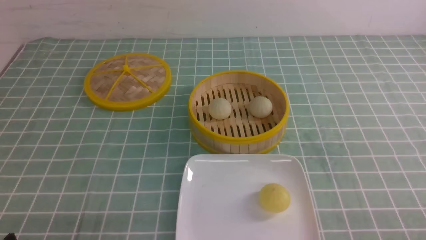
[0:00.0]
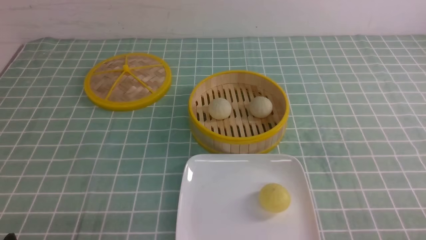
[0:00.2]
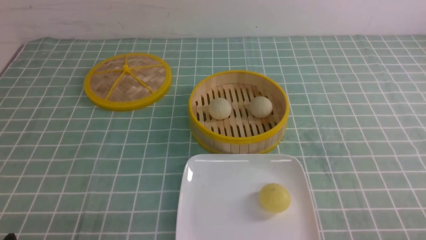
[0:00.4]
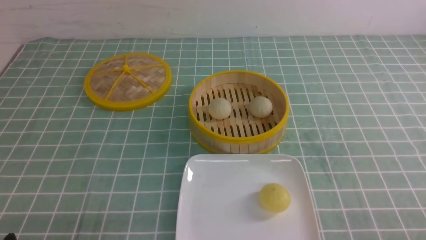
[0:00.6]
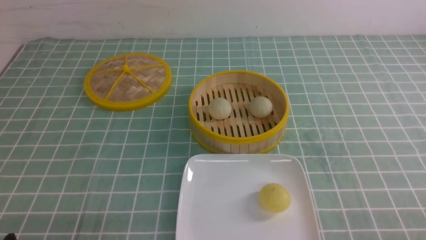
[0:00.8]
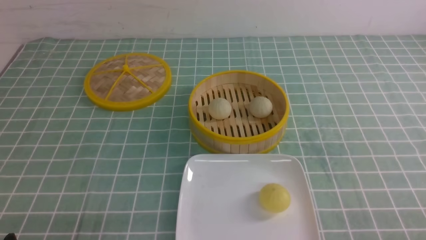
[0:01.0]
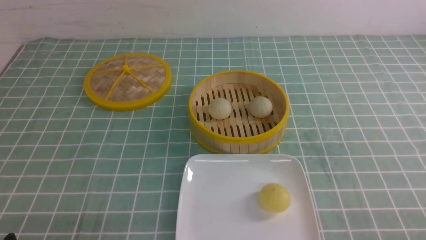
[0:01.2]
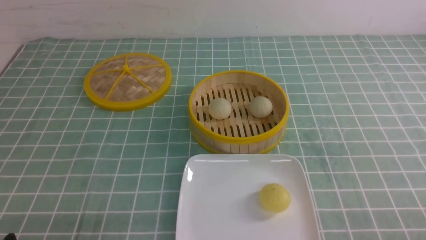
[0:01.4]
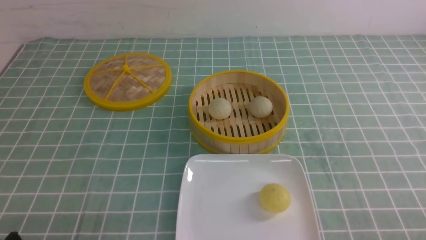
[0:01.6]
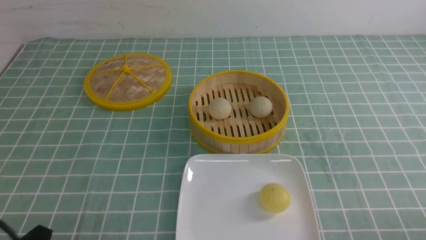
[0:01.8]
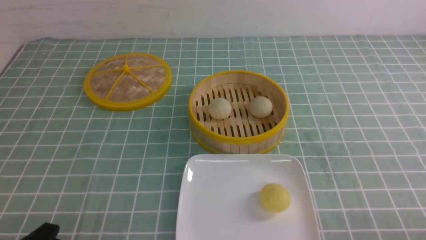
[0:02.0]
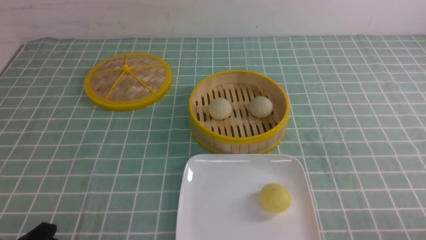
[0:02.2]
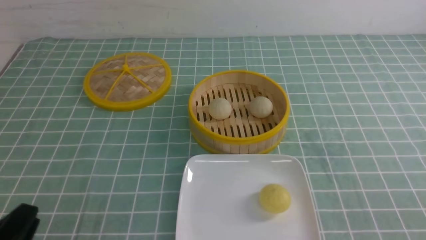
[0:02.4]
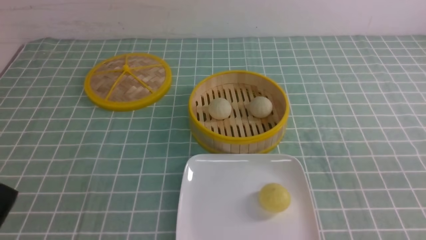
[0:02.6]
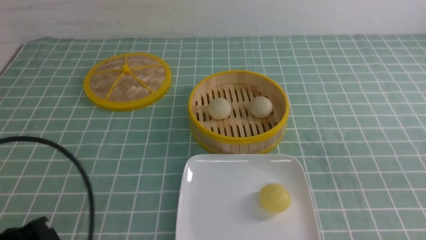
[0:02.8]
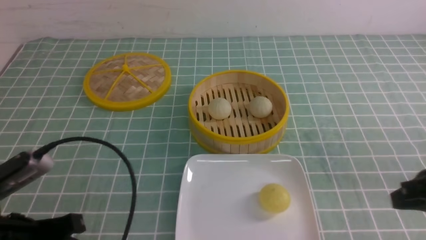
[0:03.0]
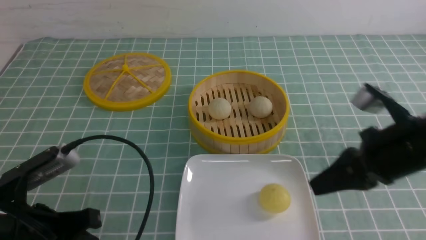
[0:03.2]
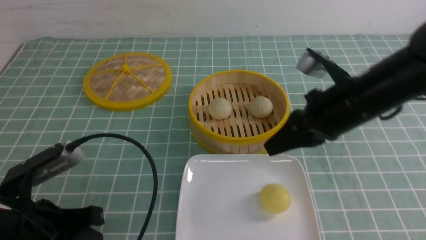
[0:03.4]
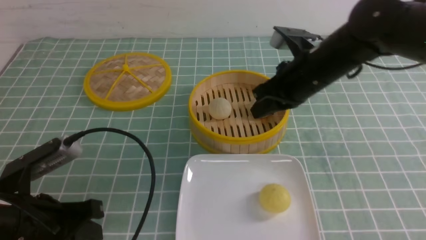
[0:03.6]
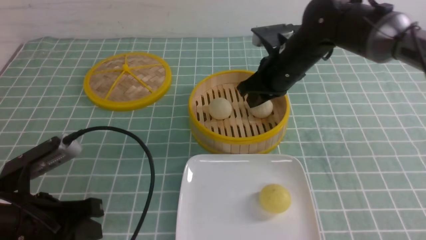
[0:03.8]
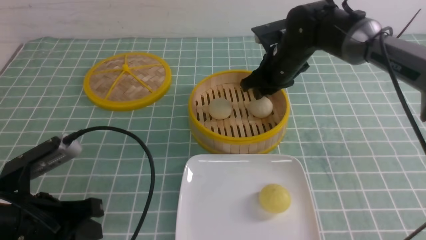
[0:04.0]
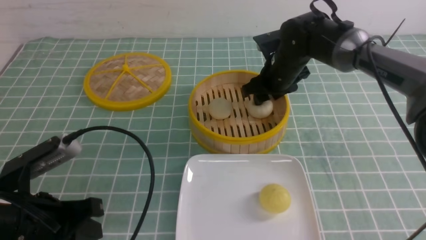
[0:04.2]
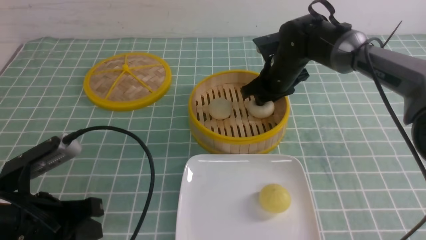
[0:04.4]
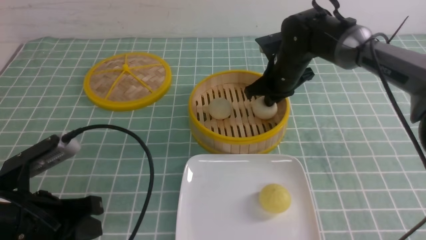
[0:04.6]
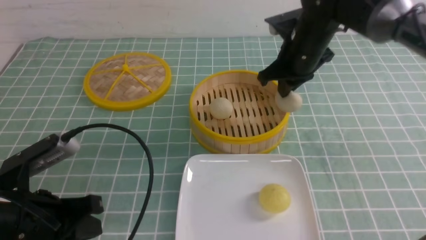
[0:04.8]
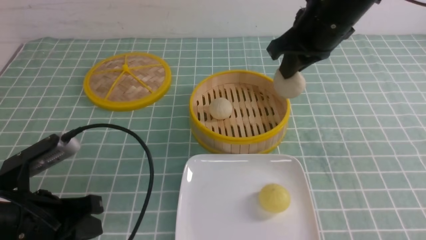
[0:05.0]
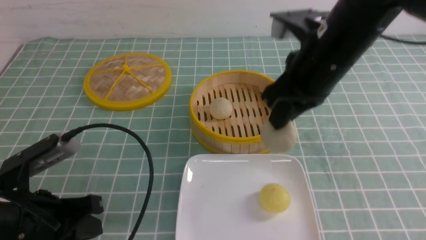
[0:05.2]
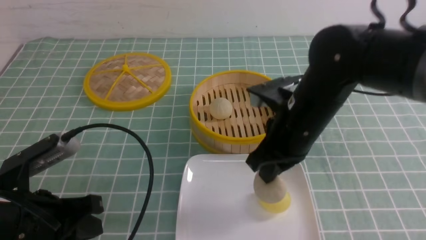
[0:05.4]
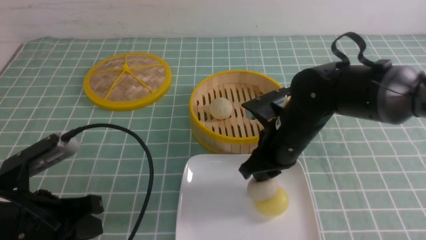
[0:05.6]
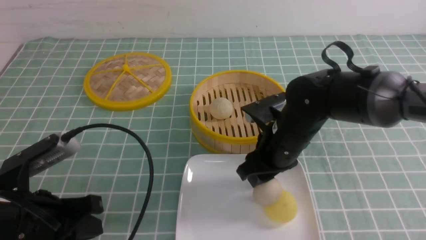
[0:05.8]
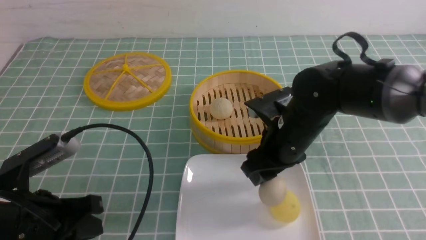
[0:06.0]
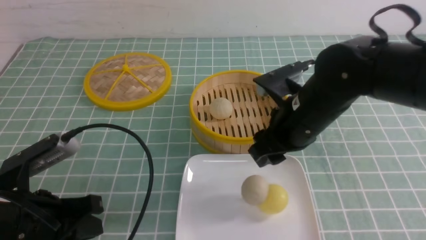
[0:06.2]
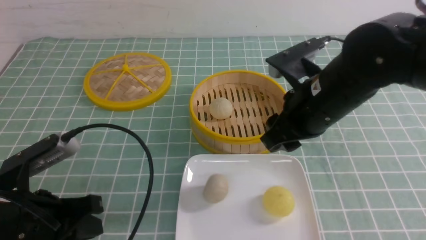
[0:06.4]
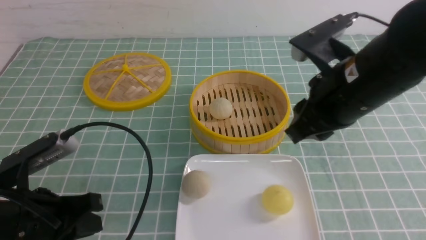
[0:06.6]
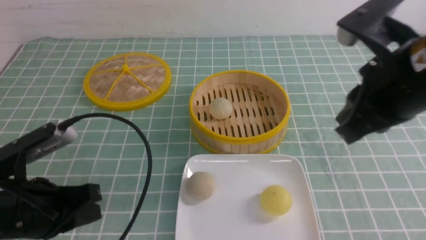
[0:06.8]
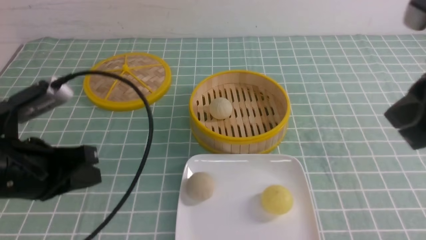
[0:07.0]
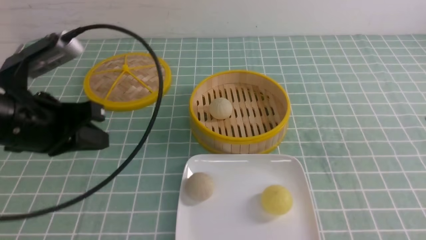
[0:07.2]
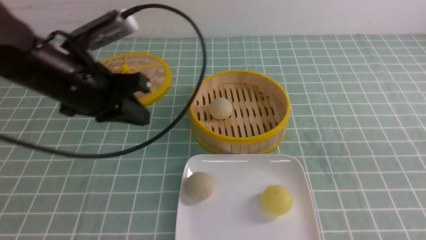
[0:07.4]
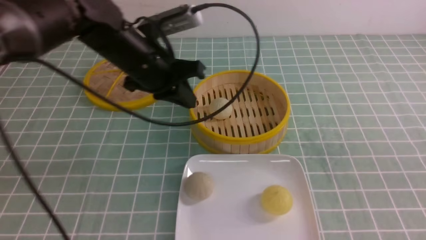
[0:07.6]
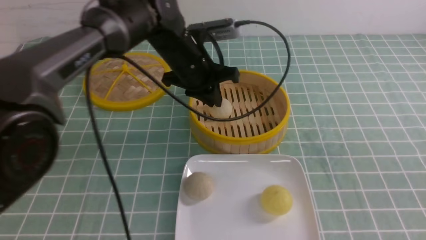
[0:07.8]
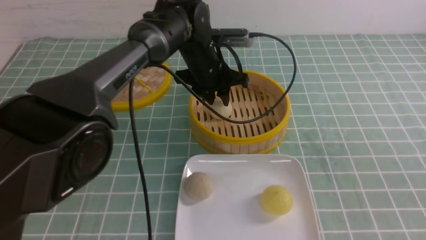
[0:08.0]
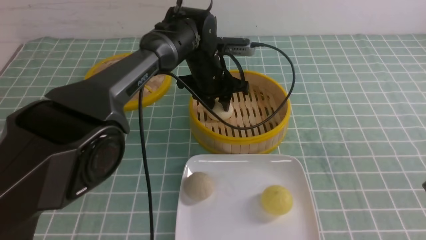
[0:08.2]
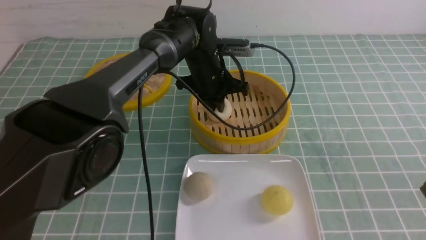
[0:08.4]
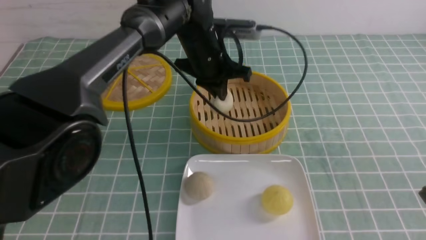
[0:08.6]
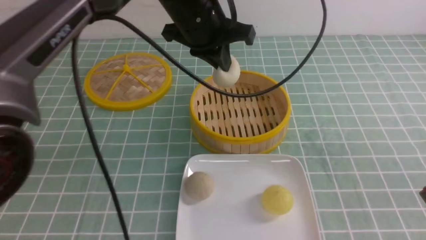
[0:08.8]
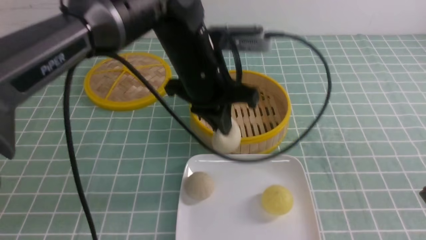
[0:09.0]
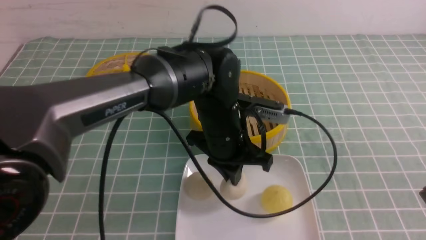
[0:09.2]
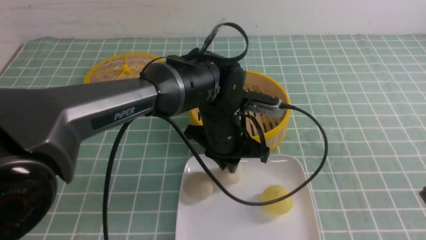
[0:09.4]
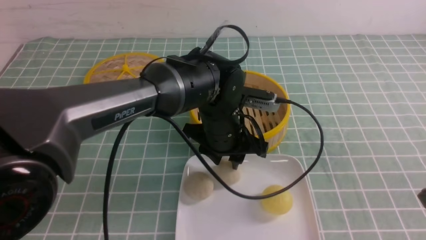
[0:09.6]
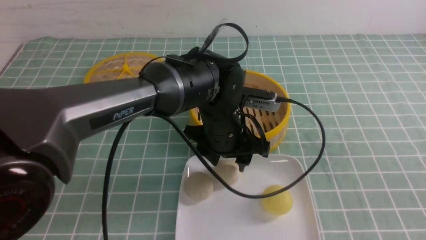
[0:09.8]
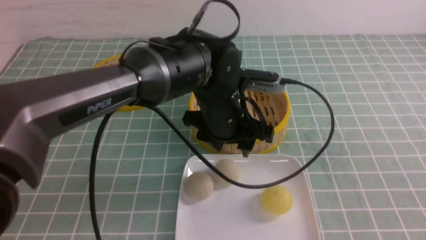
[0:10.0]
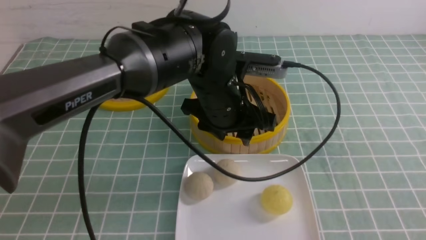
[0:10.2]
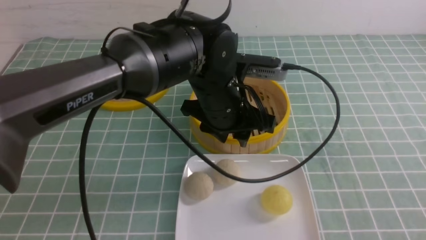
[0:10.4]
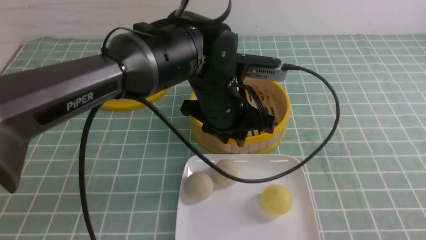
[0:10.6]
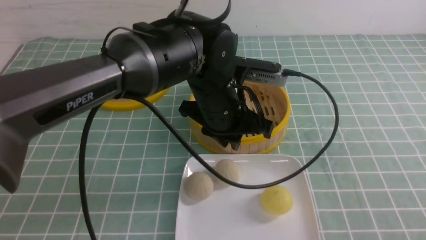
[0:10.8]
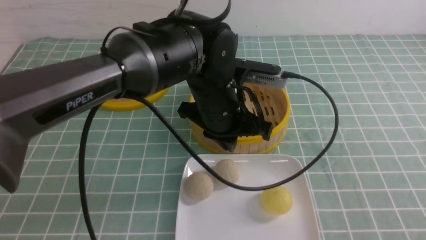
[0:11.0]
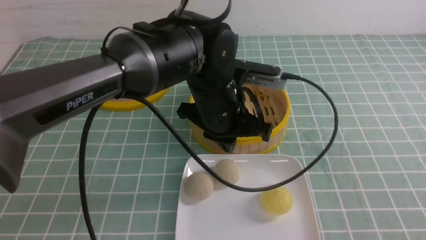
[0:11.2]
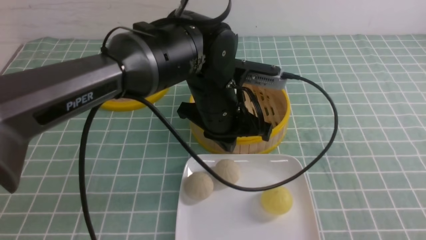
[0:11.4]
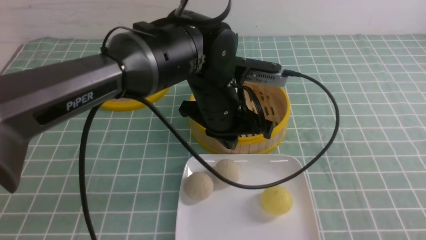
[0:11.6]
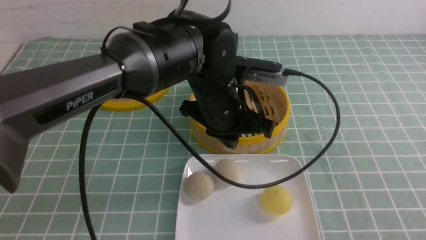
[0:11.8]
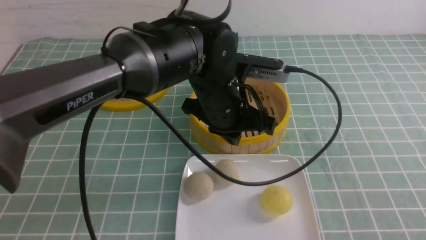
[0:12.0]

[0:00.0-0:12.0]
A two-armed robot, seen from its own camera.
Step, 0:00.0 to 0:04.6: use the right arm to grab the steamed stuffed bun that is closest to it.
Step, 0:04.8 to 0:05.8: use the right arm to put the steamed stuffed bun into the plate.
Step, 0:06.0 to 0:08.4: use the left arm to grab the steamed stuffed bun that is closest to it.
Step, 0:08.6 to 0:09.6: use the left arm to put the steamed stuffed bun into the plate.
0:01.6 to 0:03.0: The left gripper goes roughly 10 cm upward and forward, and closes its fingers. Meanwhile the right gripper is displaced forward, upward and to the left by approximately 15 cm, and closes up.
0:03.0 to 0:04.4: The right gripper is displaced forward and to the left by approximately 30 cm, and opens up.
0:04.4 to 0:06.0: The right gripper heads backward, covering roughly 15 cm, and opens up.
0:06.0 to 0:07.6: The right gripper heads backward, to the right and upward, covering some 30 cm, and closes up; the left gripper heads forward and to the right, covering some 25 cm.
0:07.6 to 0:09.0: The left gripper heads to the right, covering about 10 cm, travels forward and back again, approximately 10 cm each way, and opens, then closes again.
0:09.0 to 0:10.4: The left gripper travels downward and back again, approximately 10 cm each way, and opens its fingers; the right gripper heads backward and to the right, covering roughly 10 cm.
0:10.4 to 0:12.0: The right gripper travels downward by some 5 cm. The left gripper closes its fingers.

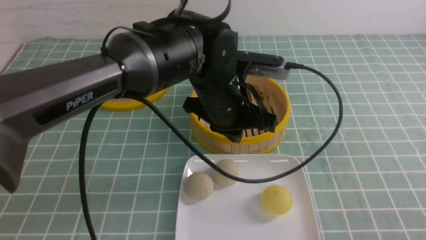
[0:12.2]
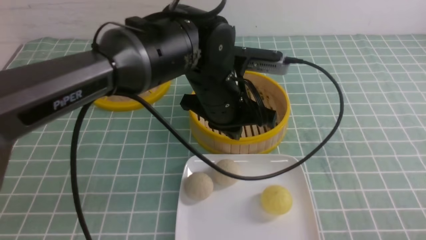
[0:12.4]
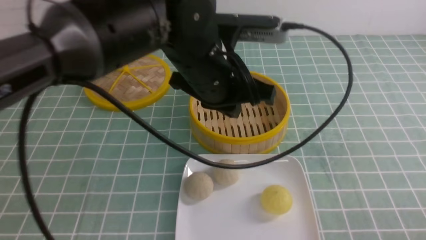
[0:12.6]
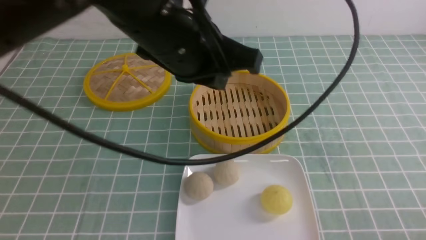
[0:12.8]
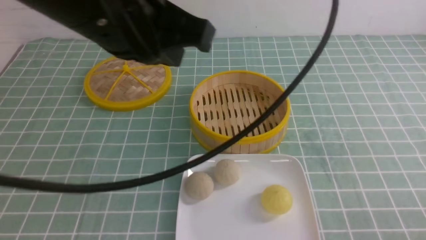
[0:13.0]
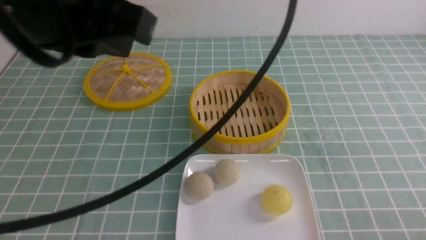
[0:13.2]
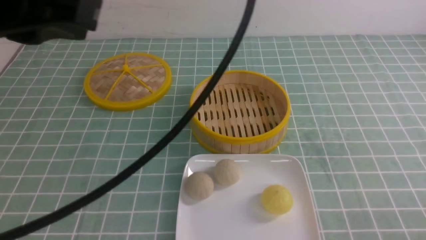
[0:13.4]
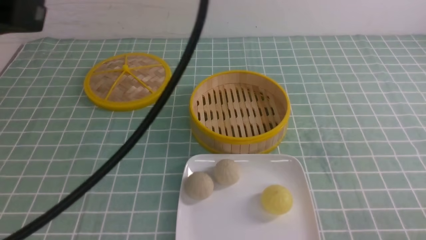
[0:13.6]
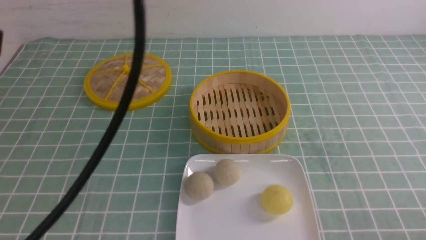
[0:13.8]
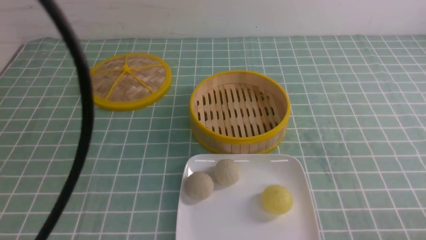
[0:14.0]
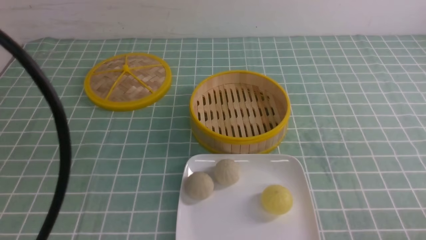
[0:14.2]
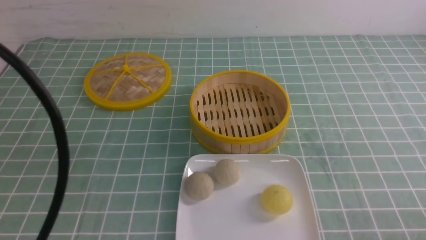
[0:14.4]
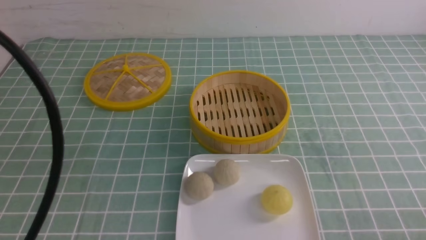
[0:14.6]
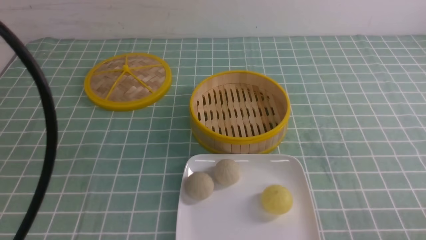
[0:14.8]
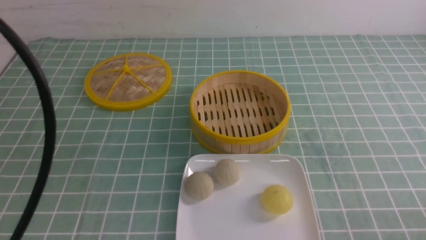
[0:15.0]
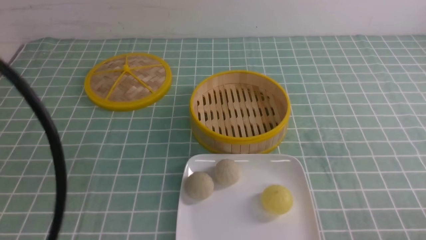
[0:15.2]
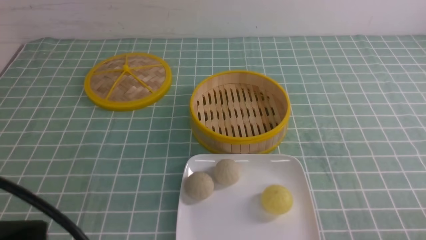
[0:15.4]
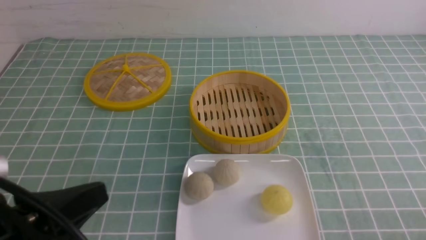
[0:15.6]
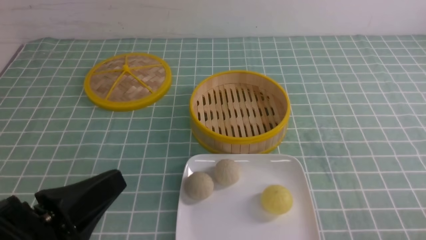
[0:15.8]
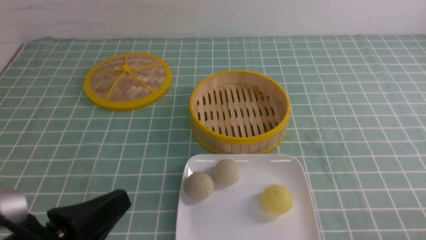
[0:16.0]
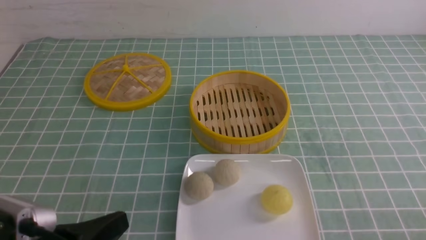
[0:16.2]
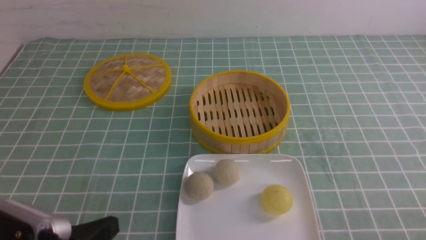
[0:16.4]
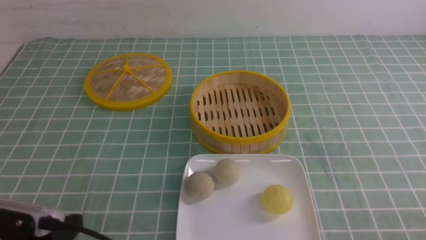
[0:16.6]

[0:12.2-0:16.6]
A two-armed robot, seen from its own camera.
0:12.2 to 0:13.6: The left gripper heads upward, to the left and backward, covering approximately 35 cm, while the right gripper goes roughly 5 cm downward.
0:13.6 to 0:15.2: The left gripper heads downward and backward, covering approximately 10 cm.
0:15.2 to 0:16.6: The left gripper goes approximately 20 cm downward.
